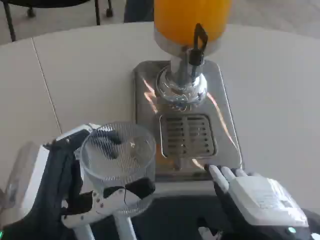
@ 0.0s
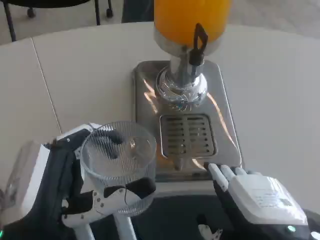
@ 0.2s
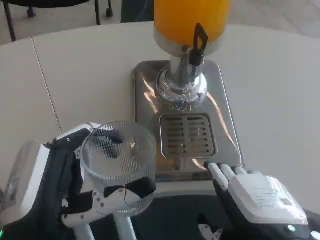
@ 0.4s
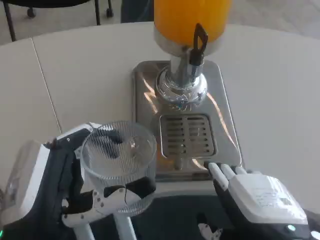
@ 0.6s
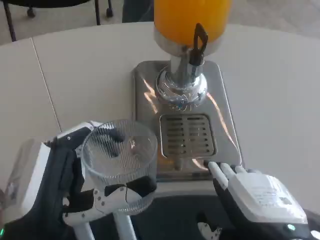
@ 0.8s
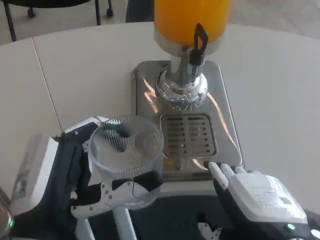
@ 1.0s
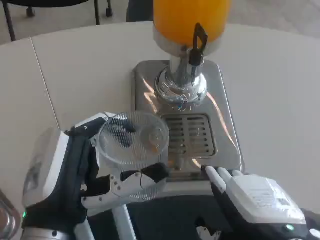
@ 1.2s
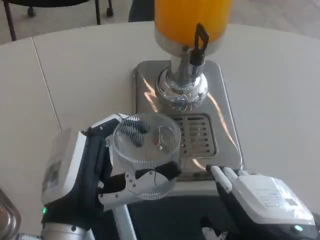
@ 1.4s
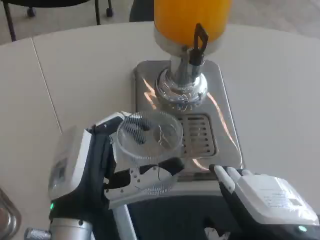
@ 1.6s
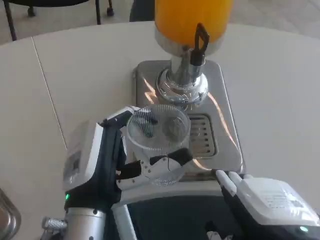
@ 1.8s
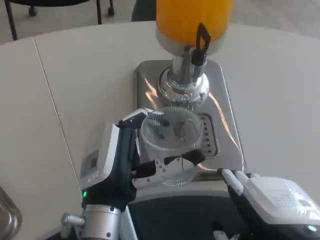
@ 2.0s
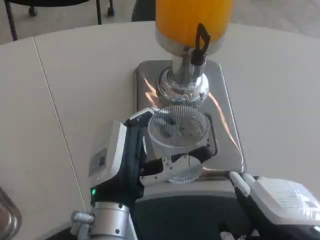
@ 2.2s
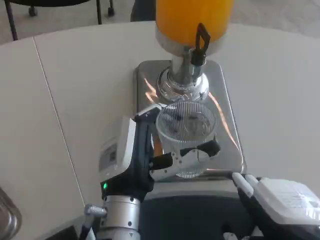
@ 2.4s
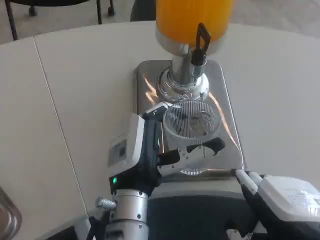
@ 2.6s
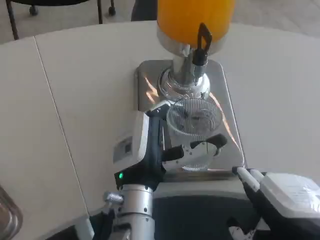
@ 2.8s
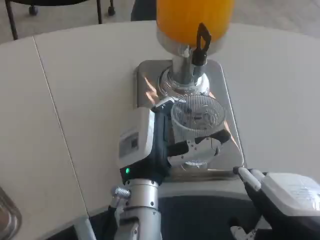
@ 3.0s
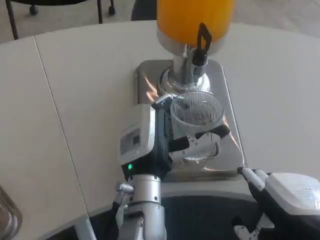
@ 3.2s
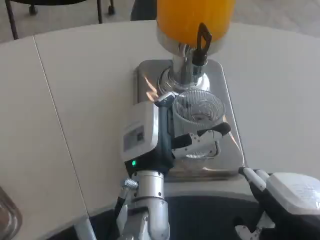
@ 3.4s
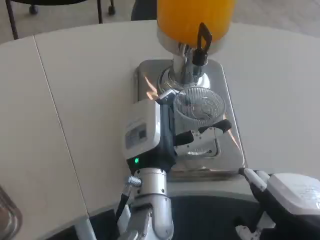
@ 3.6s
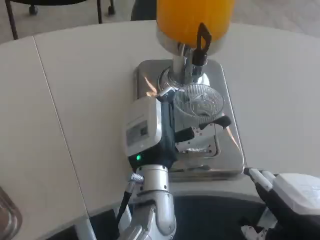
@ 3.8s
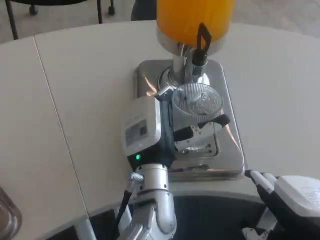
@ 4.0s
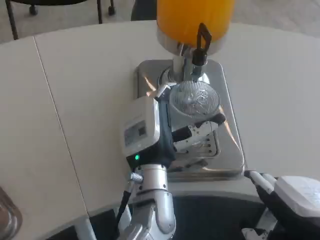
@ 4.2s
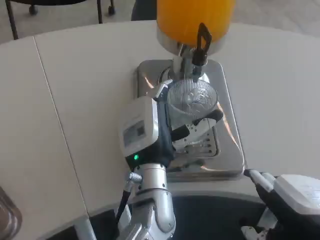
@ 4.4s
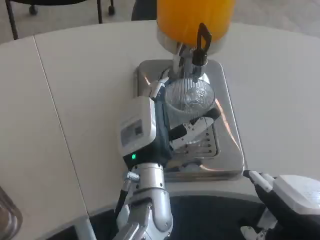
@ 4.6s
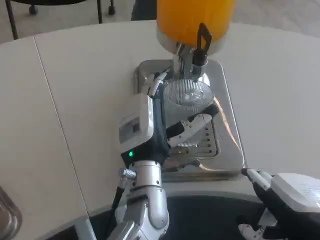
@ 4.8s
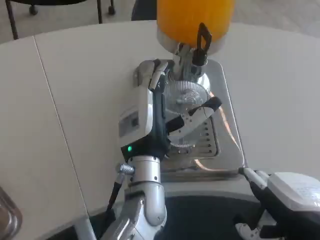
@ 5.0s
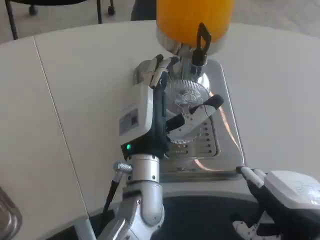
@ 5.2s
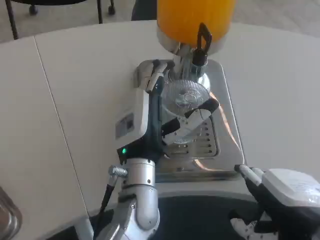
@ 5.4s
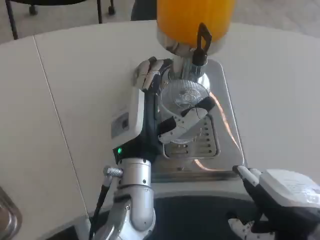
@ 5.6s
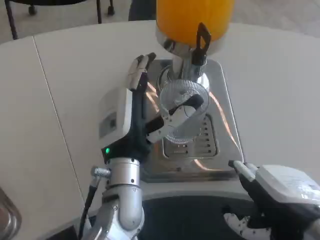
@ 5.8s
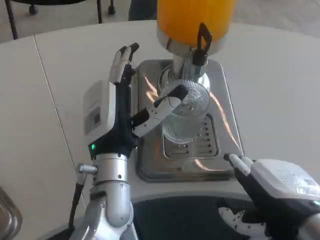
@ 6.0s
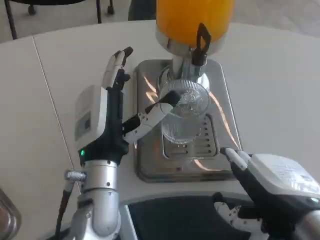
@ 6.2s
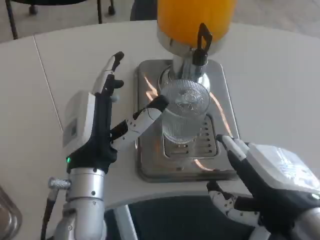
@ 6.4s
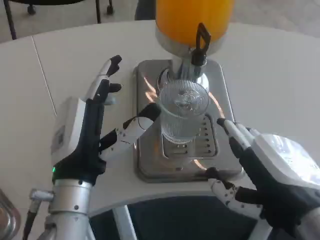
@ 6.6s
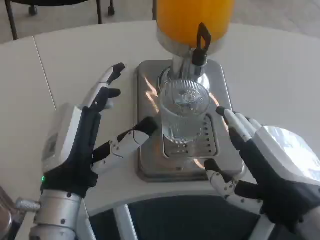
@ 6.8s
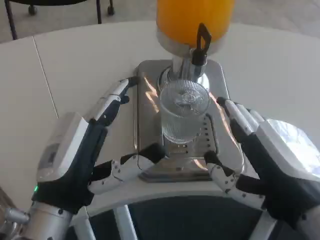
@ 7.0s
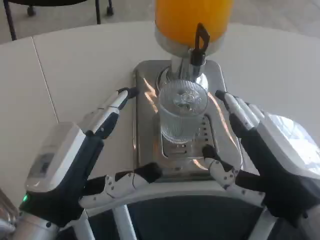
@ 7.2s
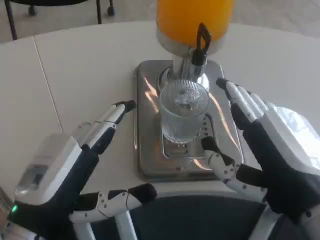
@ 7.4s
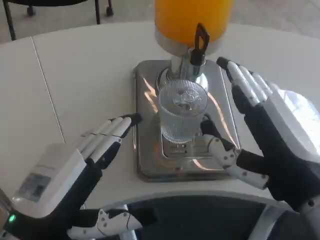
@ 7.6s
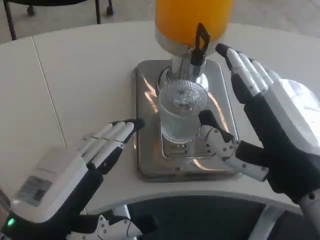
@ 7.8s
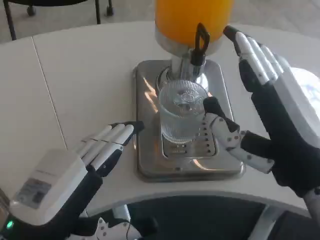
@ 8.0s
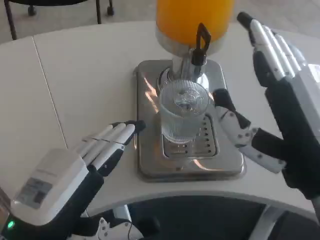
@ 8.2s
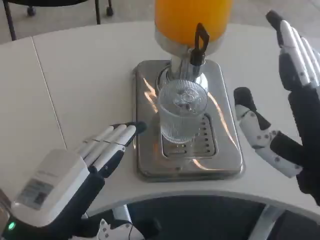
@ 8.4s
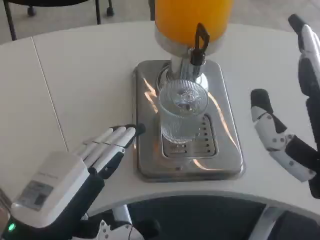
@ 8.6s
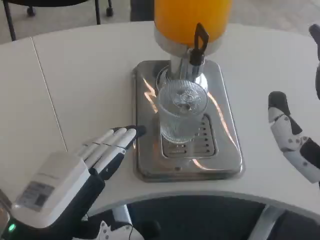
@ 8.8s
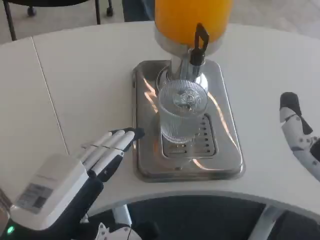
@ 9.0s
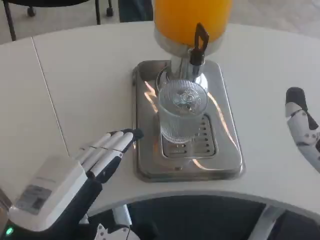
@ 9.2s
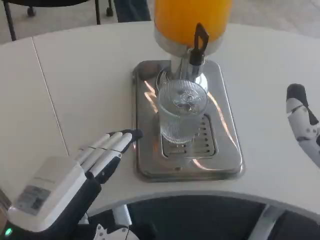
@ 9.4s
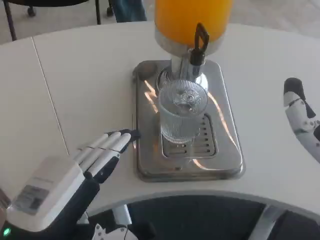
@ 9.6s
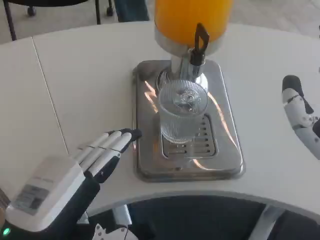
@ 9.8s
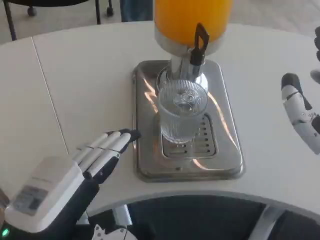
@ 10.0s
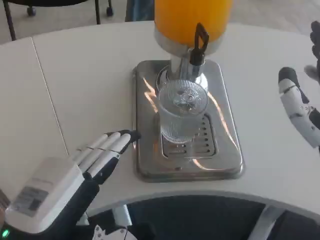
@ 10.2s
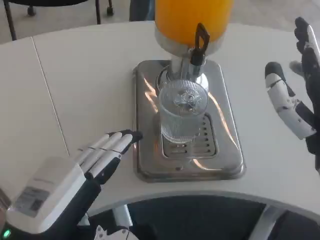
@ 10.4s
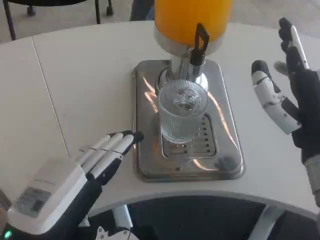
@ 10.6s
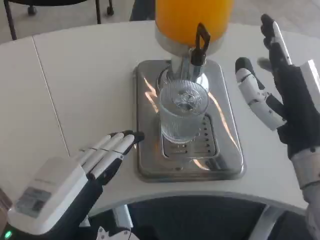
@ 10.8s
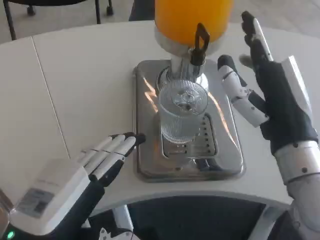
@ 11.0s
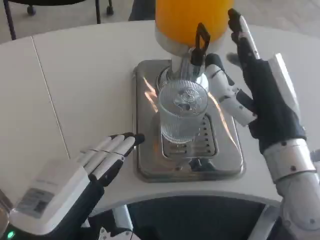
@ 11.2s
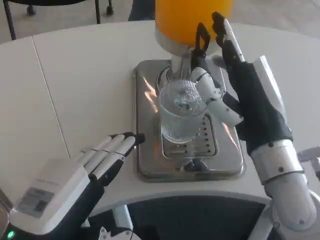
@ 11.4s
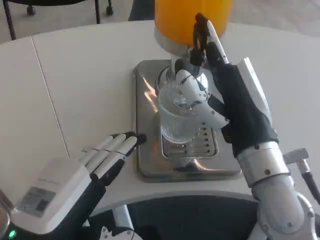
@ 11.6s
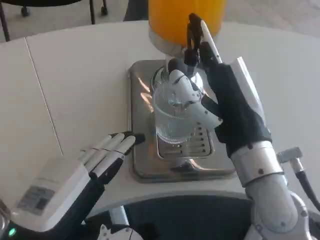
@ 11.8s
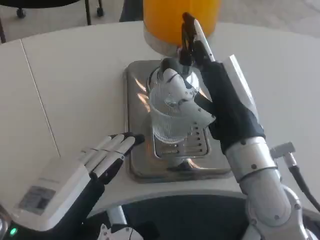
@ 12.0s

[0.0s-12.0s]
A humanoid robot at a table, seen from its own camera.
Task of the whole recording: Grasp the cup under the faucet to collect the drink, then remove the cup.
0.0s to 1.6s: The left hand is displaced forward by approximately 5 cm.
1.6s to 3.0s: The left hand shifts approximately 10 cm to the right and forward.
3.0s to 4.4s: The hands make only small movements.
4.4s to 6.0s: The left hand moves to the left, some 5 cm.
6.0s to 7.6s: The left hand goes roughly 15 cm backward and to the left.
7.6s to 9.0s: The right hand changes place by some 5 cm.
9.0s to 10.4s: The right hand moves forward, some 5 cm.
10.4s to 12.0s: The right hand is displaced to the left by roughly 10 cm.

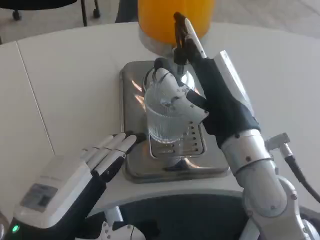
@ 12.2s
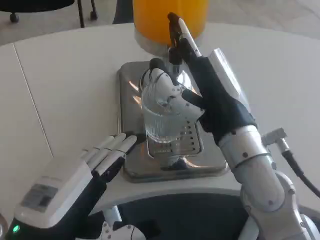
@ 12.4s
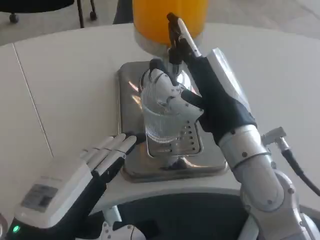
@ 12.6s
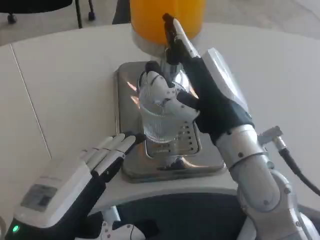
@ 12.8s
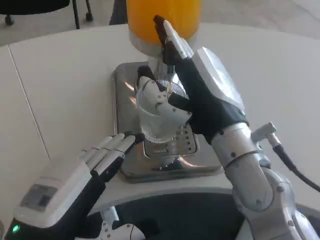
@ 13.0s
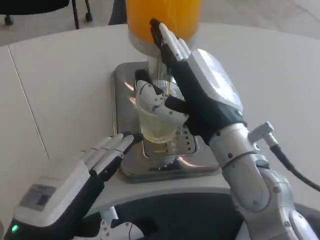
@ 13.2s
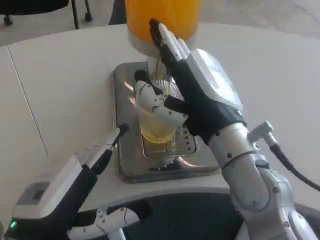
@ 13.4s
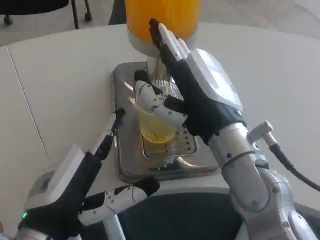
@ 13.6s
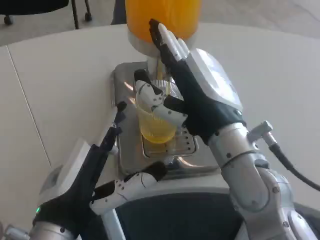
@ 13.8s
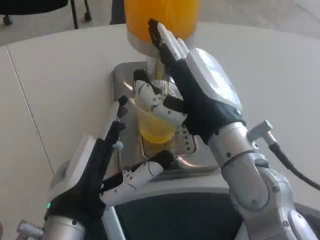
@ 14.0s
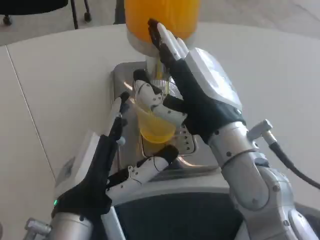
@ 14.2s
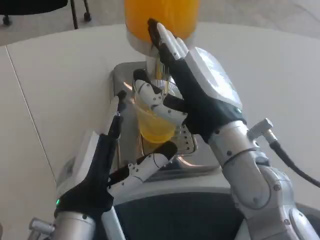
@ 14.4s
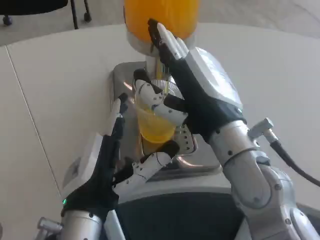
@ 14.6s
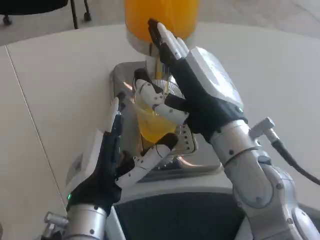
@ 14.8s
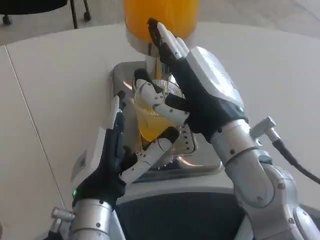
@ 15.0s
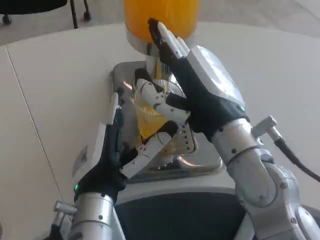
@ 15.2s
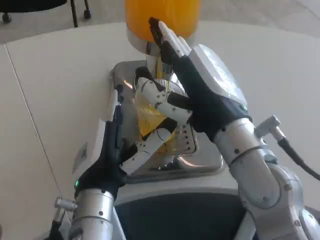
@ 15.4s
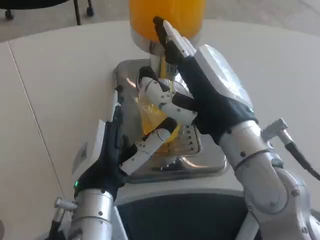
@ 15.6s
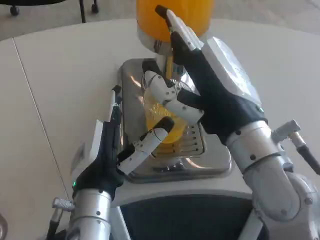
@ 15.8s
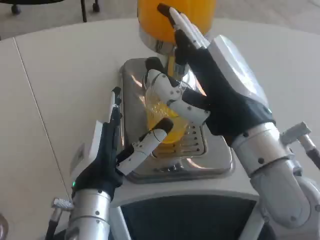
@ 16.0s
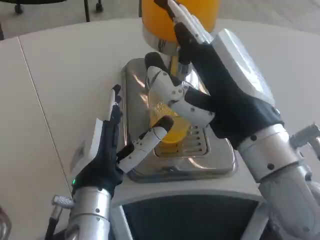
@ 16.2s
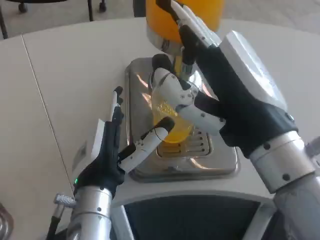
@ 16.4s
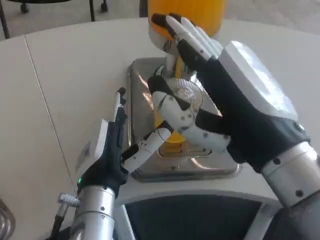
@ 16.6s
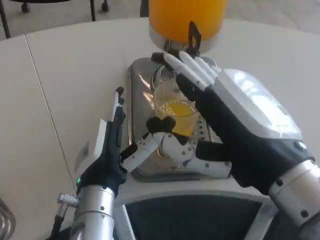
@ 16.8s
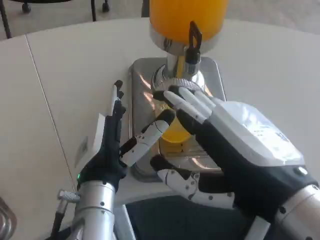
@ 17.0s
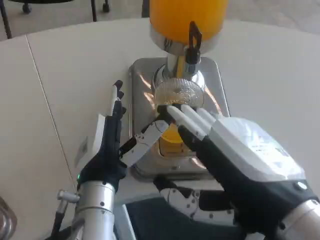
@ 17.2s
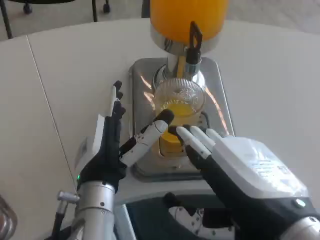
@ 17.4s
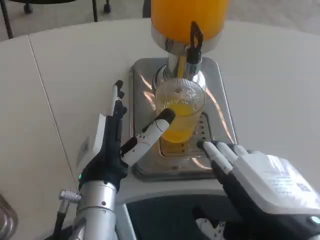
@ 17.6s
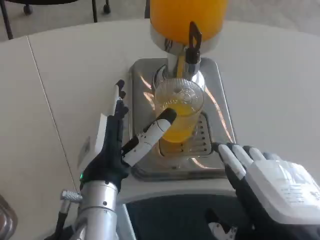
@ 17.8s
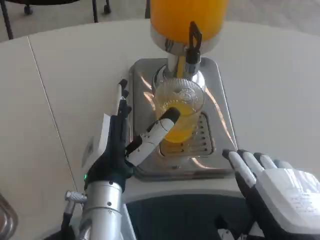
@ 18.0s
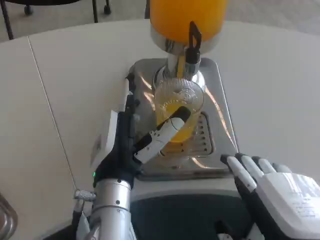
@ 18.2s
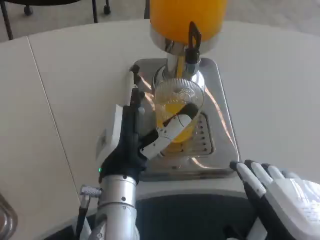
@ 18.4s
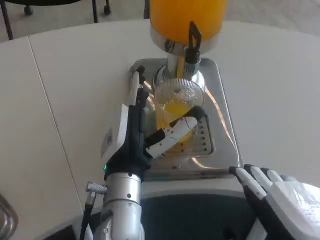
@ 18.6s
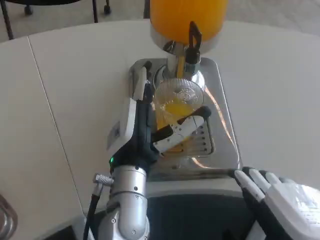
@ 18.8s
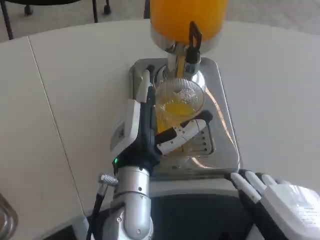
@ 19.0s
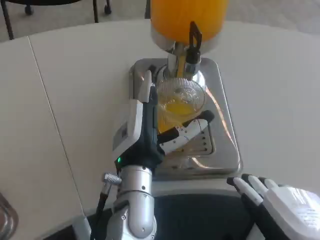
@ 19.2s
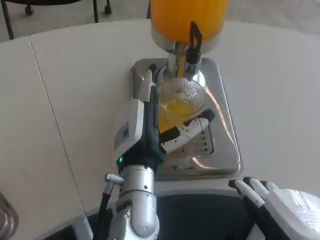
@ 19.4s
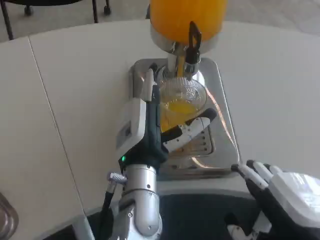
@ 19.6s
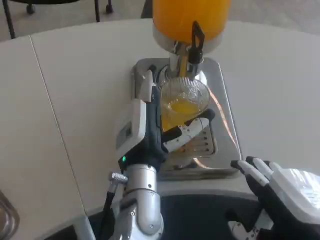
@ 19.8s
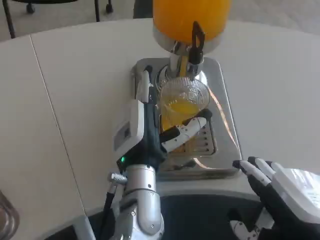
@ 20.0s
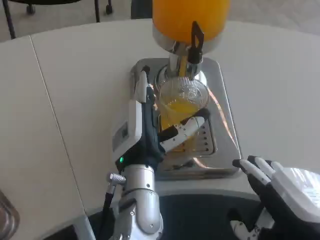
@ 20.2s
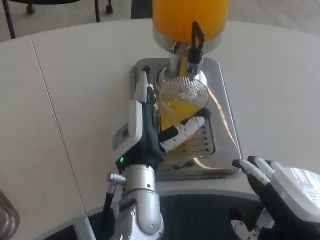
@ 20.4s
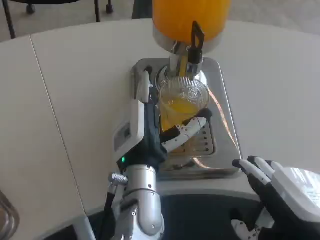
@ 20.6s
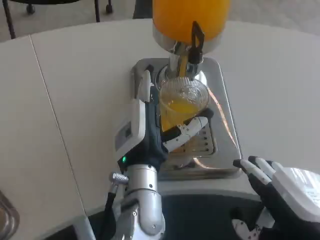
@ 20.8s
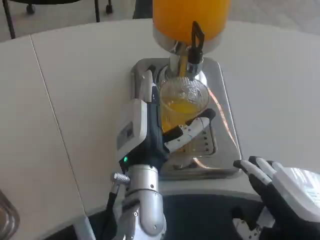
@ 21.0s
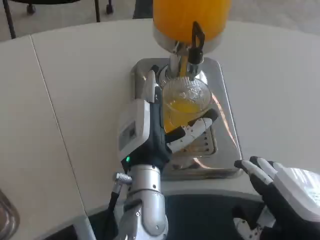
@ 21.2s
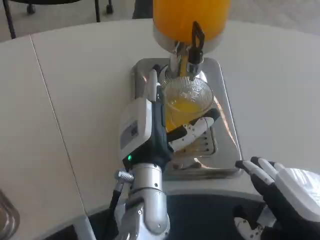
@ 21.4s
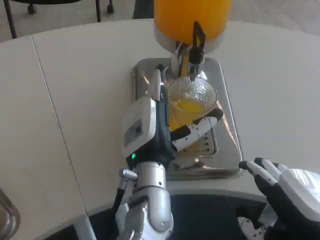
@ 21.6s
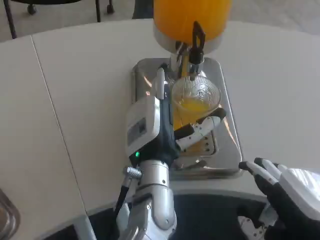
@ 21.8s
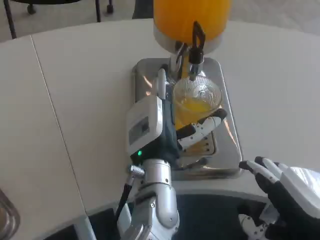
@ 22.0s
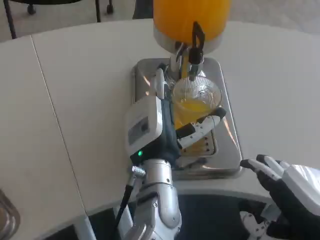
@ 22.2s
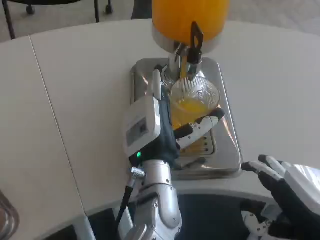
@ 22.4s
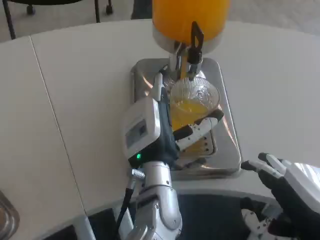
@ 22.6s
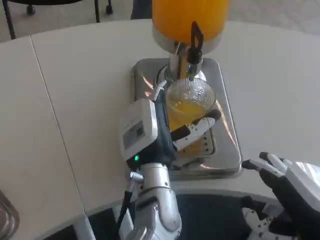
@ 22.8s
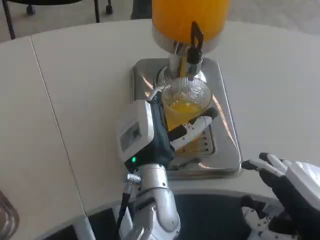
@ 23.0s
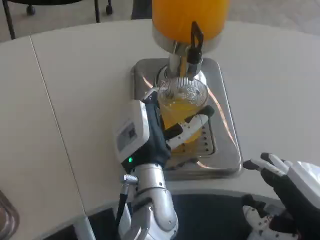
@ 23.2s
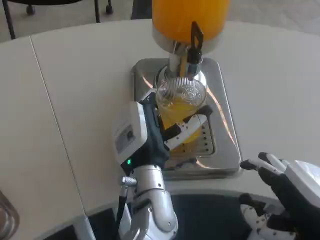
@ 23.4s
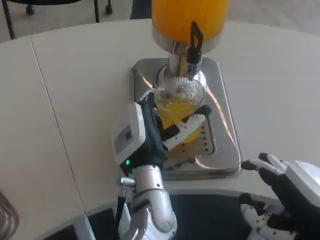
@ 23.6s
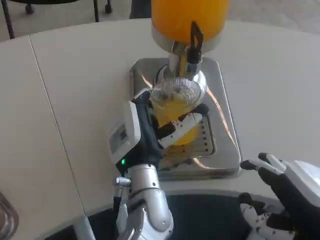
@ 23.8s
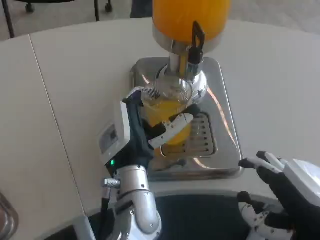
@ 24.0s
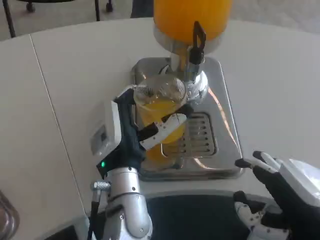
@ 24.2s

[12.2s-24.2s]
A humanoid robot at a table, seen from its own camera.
Task of the whole recording: Grasp the cup under the faucet to collect the drink, then remove the cup.
13.8s to 15.2s: The left hand heads to the right, covering roughly 5 cm.
15.2s to 16.6s: The right hand travels backward by some 10 cm.
16.6s to 18.2s: The right hand moves backward and downward, roughly 10 cm.
18.2s to 19.8s: The left hand ends up approximately 5 cm from where it was.
19.8s to 21.2s: Both hands stay put.
21.2s to 24.2s: The hands stay close to where they were, moving slightly.
